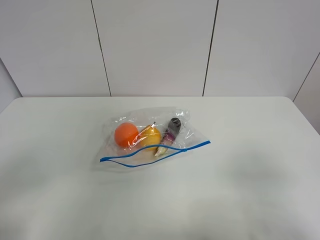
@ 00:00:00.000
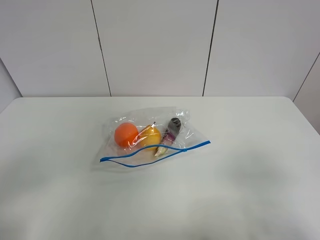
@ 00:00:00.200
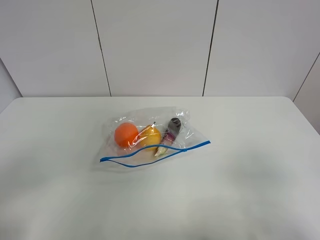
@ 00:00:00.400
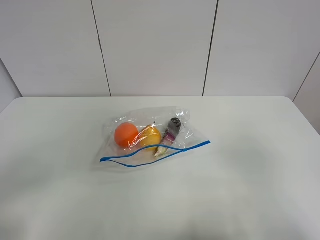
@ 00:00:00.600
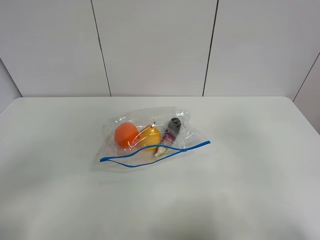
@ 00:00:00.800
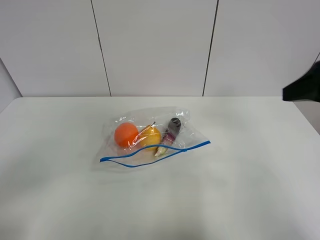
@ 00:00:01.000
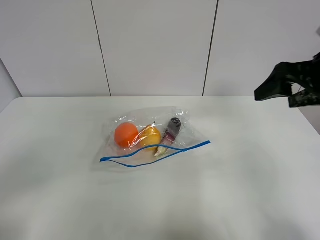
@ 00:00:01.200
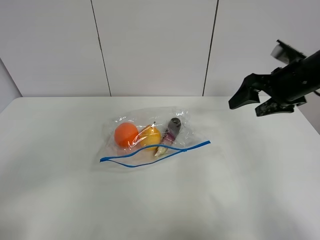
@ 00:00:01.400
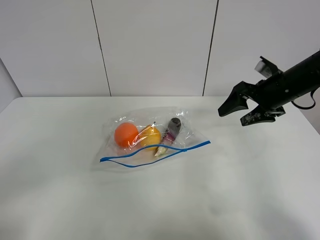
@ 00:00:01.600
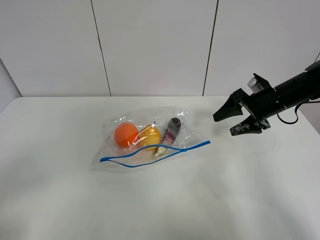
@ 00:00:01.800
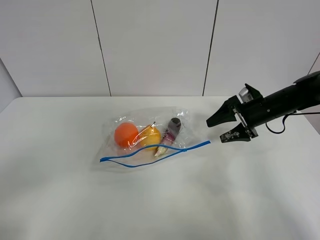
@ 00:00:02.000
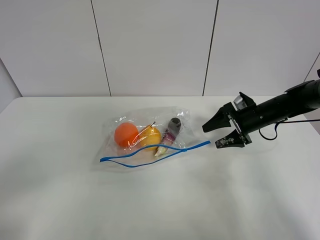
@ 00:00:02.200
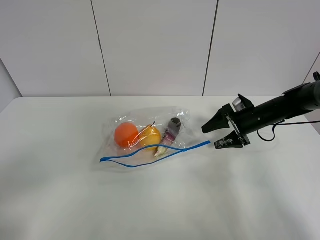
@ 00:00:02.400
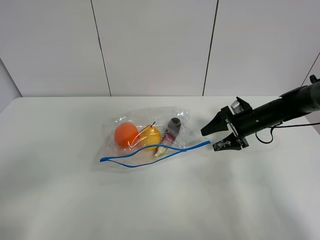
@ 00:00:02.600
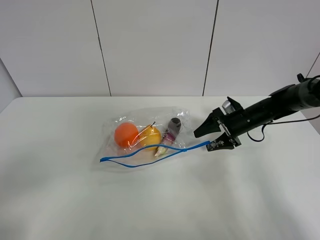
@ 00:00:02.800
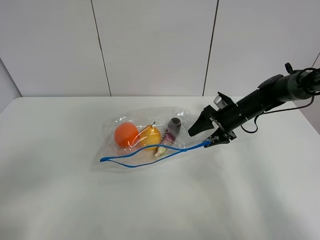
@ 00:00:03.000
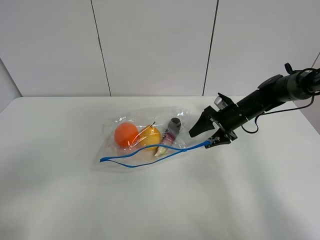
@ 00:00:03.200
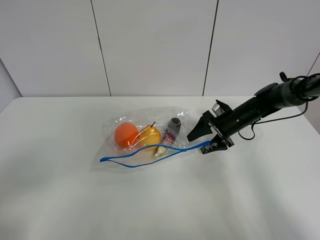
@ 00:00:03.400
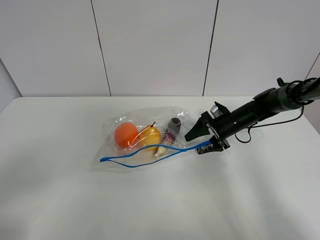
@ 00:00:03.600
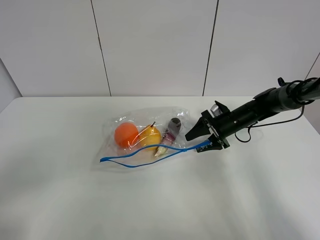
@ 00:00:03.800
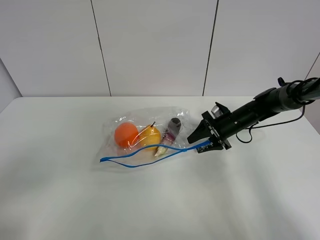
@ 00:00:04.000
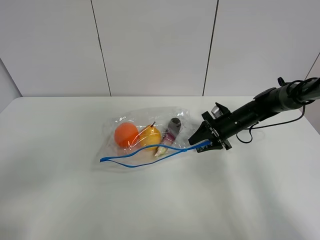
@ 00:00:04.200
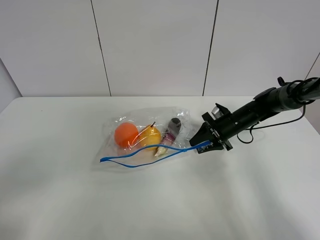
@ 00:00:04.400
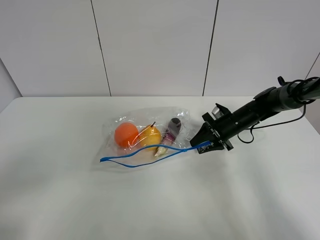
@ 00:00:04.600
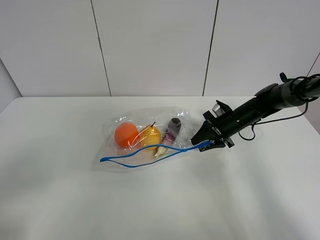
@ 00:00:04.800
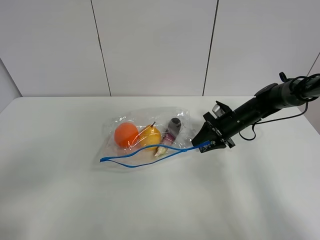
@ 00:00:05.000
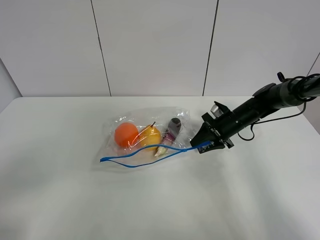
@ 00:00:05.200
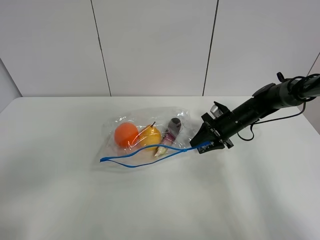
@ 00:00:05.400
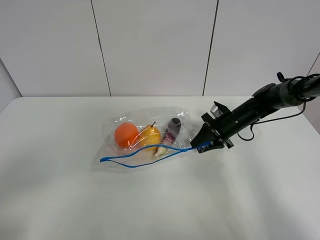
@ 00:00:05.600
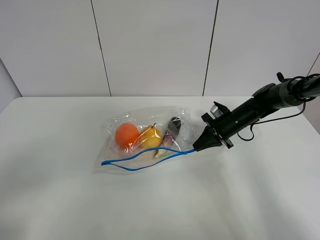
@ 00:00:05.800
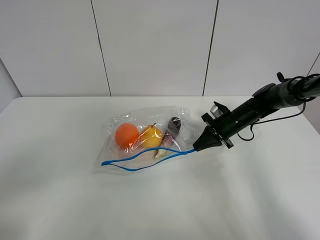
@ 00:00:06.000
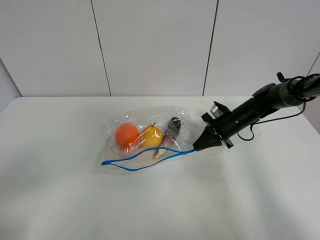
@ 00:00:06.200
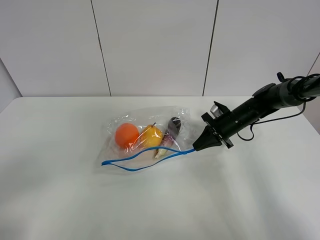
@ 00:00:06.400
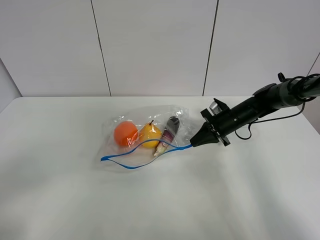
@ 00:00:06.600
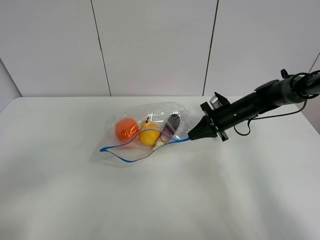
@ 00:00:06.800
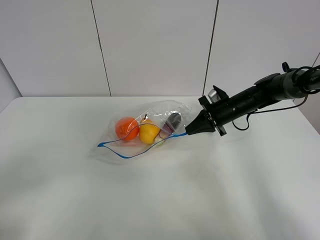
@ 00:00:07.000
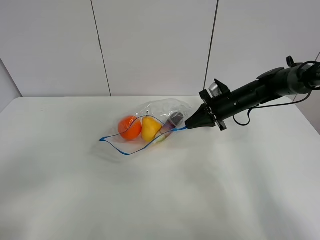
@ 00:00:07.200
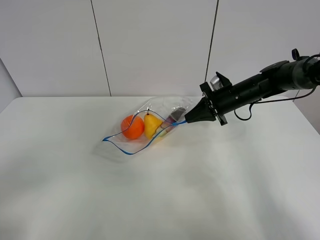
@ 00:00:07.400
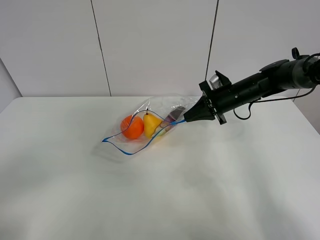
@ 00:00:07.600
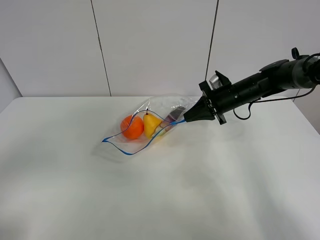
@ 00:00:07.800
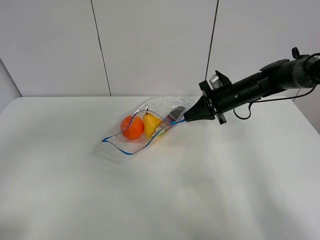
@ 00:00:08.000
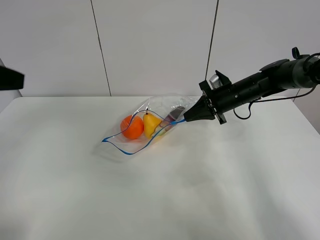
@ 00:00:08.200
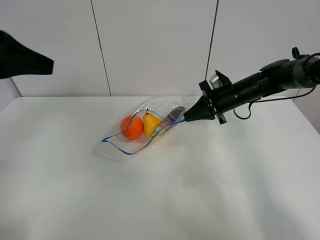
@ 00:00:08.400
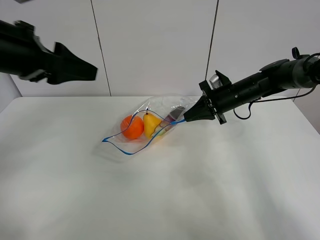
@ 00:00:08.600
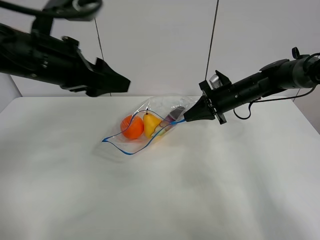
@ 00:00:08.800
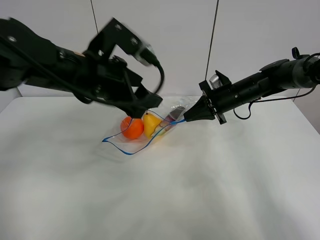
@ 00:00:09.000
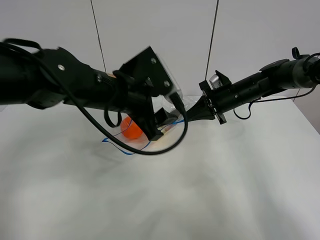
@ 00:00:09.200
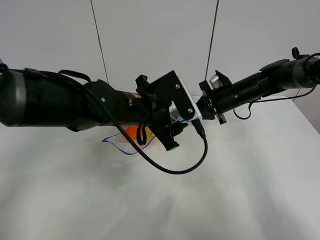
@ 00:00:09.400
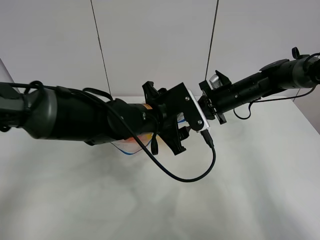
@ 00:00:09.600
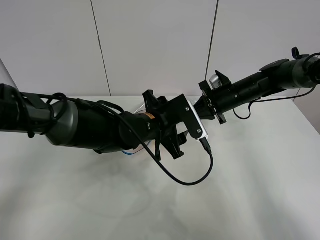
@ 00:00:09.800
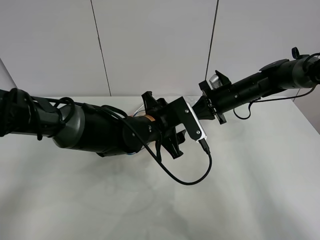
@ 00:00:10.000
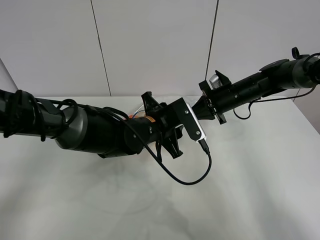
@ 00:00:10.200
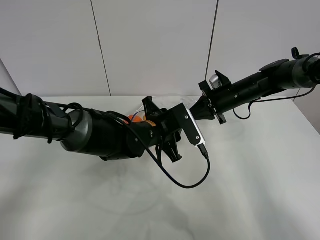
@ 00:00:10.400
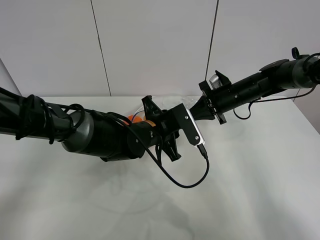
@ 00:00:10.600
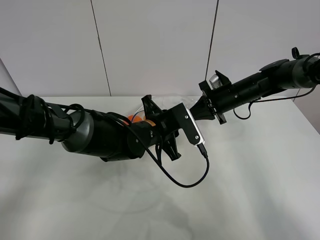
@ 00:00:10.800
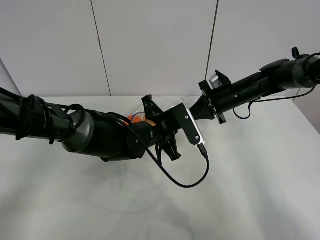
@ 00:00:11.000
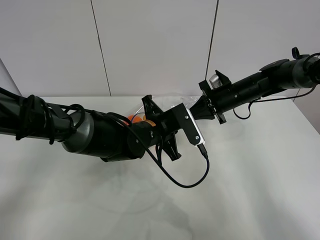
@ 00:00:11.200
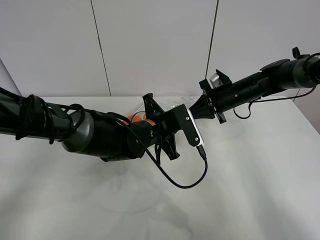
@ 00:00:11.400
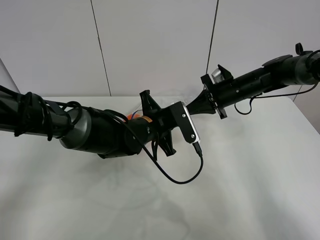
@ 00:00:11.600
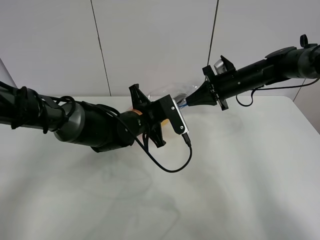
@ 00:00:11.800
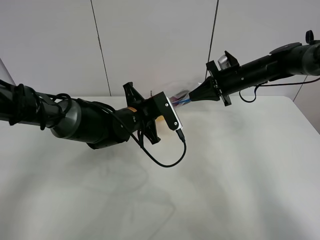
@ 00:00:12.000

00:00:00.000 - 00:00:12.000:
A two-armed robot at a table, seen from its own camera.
Step, 00:00:00.000 - 00:00:05.600: Grasp the fruit bag with right gripper.
Step, 00:00:05.800 - 00:00:07.800: Lift the fruit bag with your right gripper.
00:00:00.000 - 00:00:01.600: The right gripper travels forward by about 35 cm.
00:00:01.600 - 00:00:03.000: The right gripper moves downward and forward, some 15 cm.
00:00:03.000 - 00:00:04.400: The right gripper closes its fingers.
00:00:04.400 - 00:00:06.000: The right gripper closes up.
00:00:06.000 - 00:00:07.600: The right gripper goes approximately 10 cm upward.
00:00:07.600 - 00:00:09.000: The left gripper heads forward and to the right, covering roughly 35 cm.
00:00:09.000 - 00:00:10.400: The left gripper moves downward and to the right, approximately 15 cm, and closes its fingers.
00:00:10.400 - 00:00:12.000: The right gripper shifts by some 5 cm. Meanwhile the left gripper moves to the left, some 5 cm, and closes its fingers.

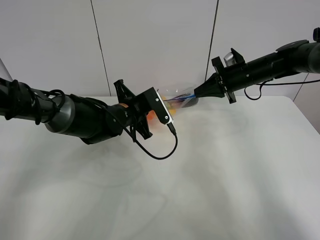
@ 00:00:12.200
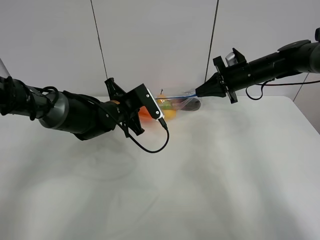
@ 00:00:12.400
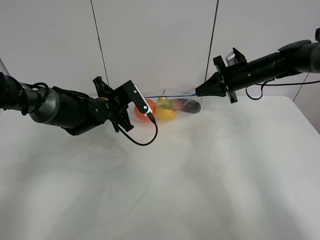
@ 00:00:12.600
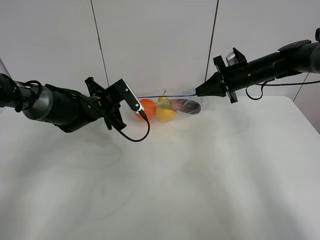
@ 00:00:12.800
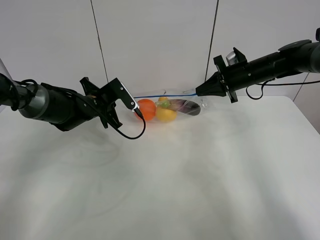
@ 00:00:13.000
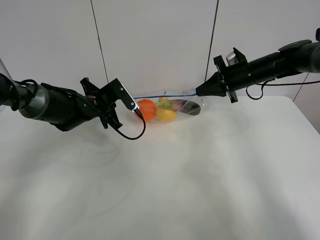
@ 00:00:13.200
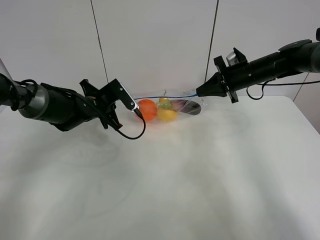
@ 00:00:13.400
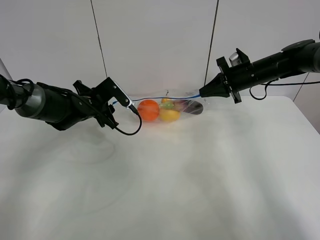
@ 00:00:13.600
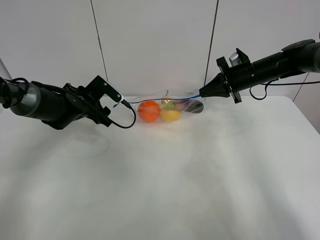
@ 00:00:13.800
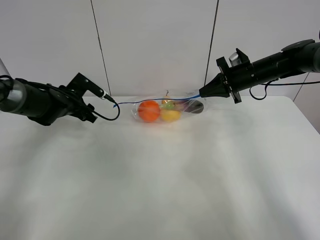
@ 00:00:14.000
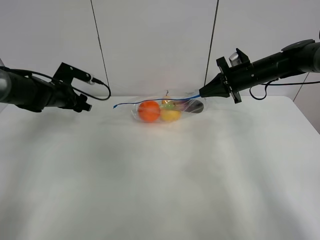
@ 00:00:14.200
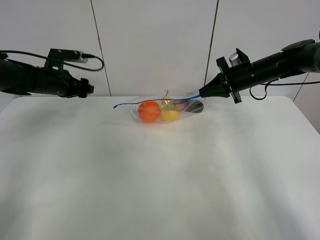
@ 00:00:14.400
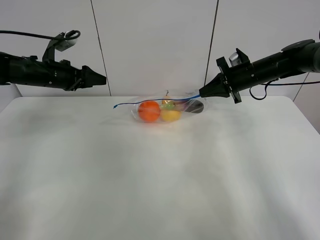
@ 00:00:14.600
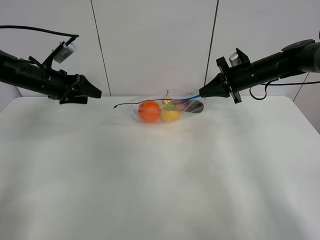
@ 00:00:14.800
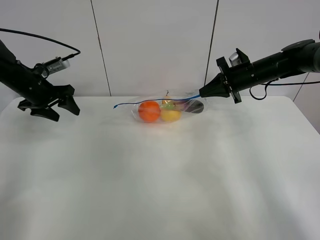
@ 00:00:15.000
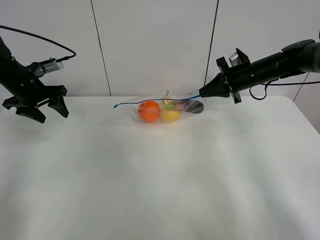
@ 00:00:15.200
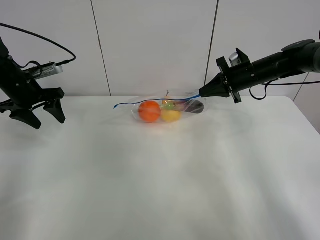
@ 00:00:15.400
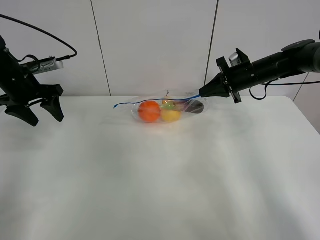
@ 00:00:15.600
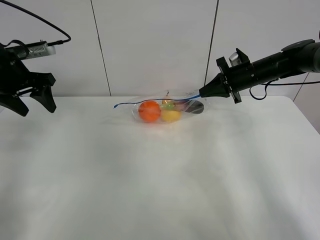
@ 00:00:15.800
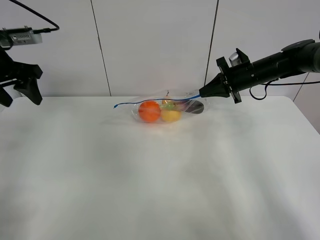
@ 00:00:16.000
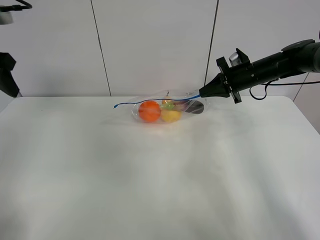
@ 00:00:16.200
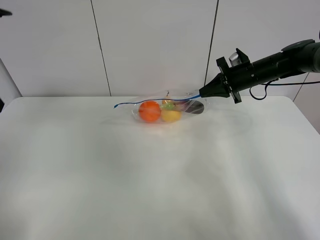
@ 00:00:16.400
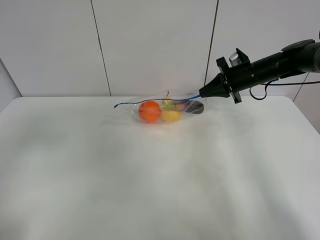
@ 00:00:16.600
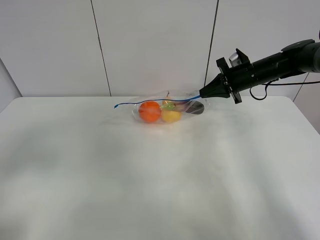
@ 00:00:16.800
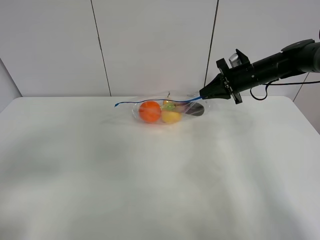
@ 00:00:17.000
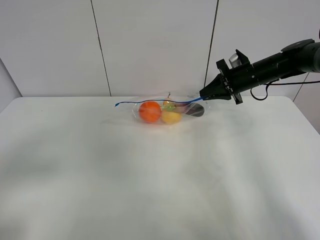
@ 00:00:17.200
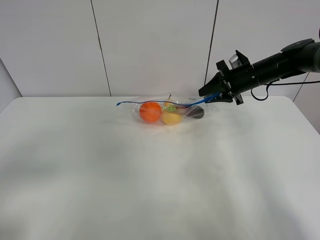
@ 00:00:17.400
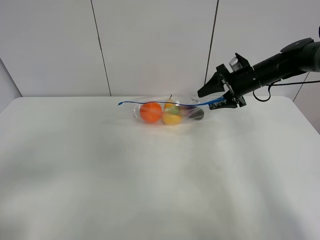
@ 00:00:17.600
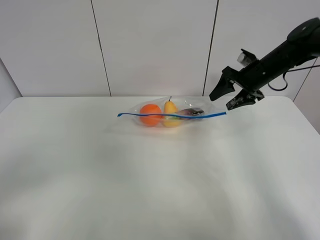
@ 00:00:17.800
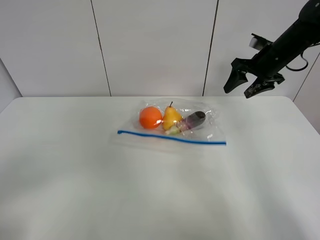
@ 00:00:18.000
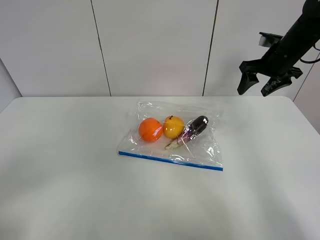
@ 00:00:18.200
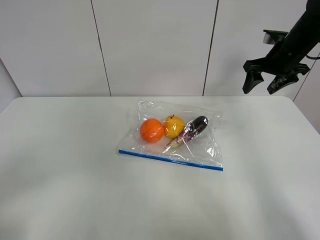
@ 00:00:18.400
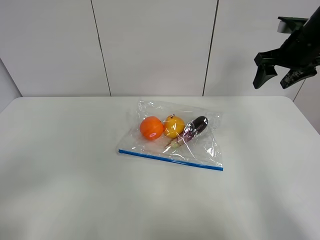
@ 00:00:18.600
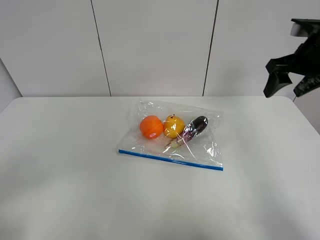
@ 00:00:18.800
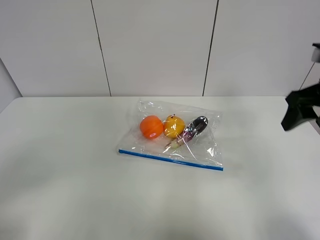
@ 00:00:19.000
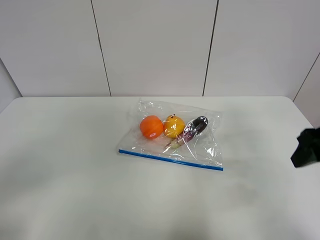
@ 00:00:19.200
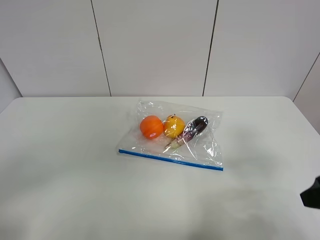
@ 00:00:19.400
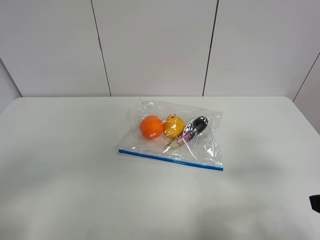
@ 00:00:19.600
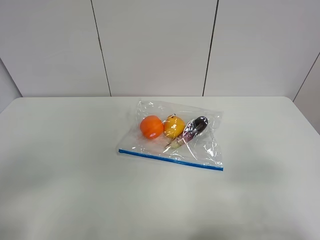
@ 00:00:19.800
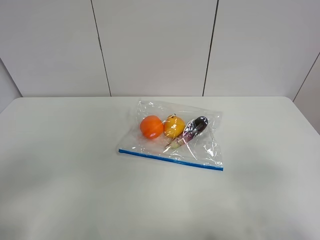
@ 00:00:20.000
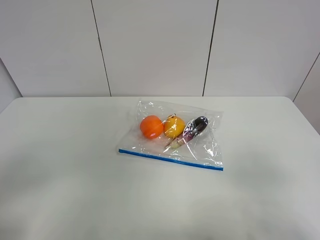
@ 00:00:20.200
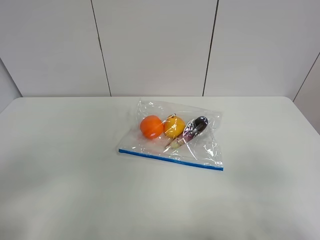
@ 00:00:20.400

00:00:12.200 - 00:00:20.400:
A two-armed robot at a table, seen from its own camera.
00:00:12.200 - 00:00:13.800: The left gripper goes approximately 15 cm to the left, and opens up.
00:00:13.800 - 00:00:15.400: The left gripper is displaced to the left and upward by approximately 15 cm.
00:00:15.400 - 00:00:17.200: The left gripper is displaced backward by some 30 cm.
00:00:17.200 - 00:00:18.800: The right gripper travels upward, backward and to the right by about 15 cm, and opens; the left gripper shifts about 10 cm backward.
00:00:18.800 - 00:00:20.400: The right gripper travels backward by some 35 cm.
